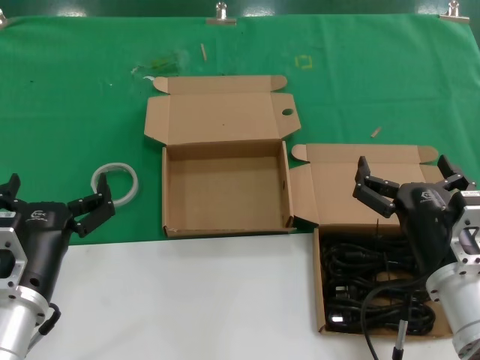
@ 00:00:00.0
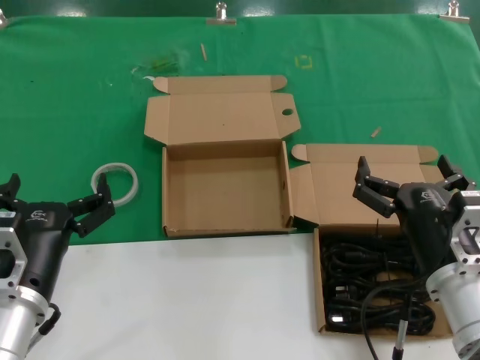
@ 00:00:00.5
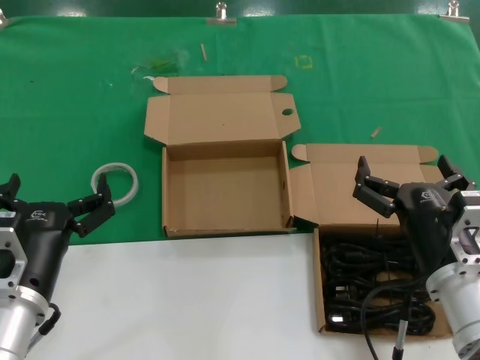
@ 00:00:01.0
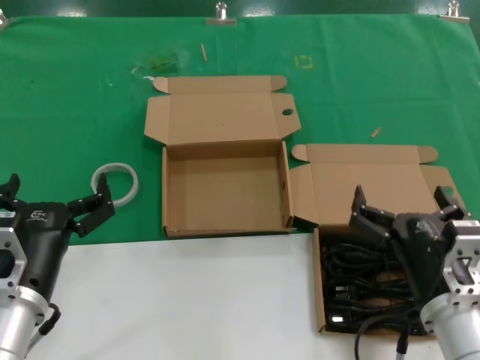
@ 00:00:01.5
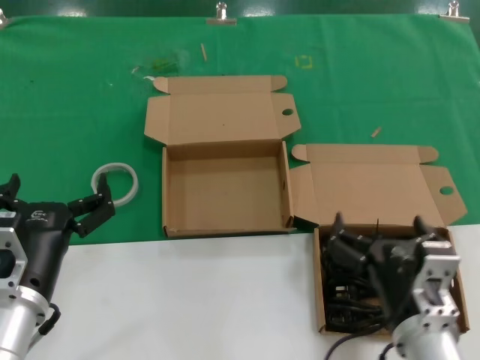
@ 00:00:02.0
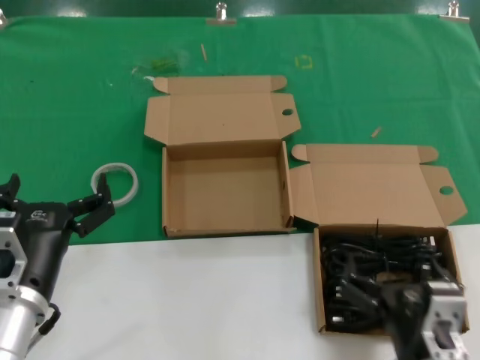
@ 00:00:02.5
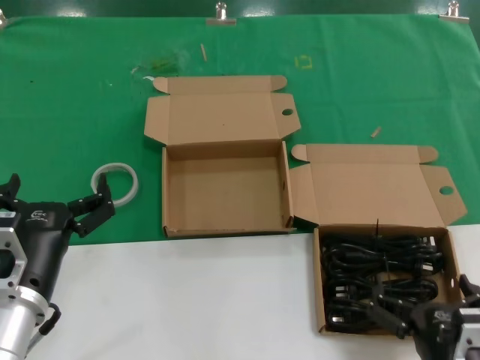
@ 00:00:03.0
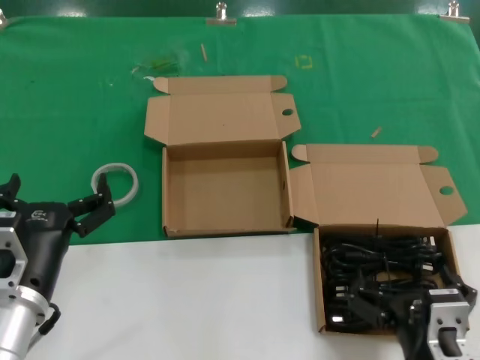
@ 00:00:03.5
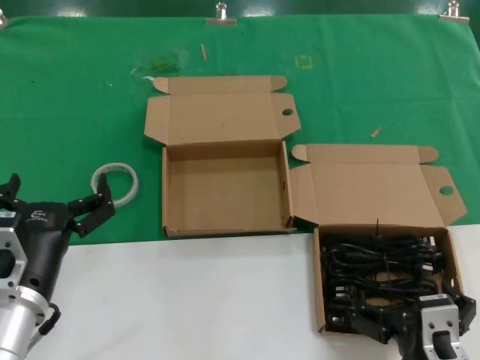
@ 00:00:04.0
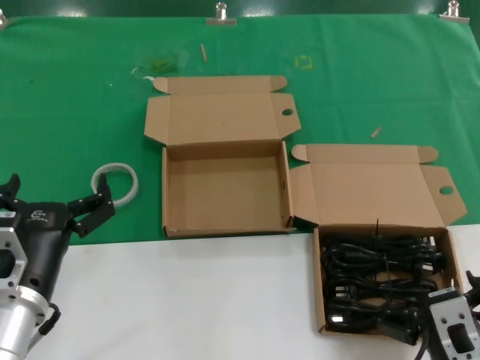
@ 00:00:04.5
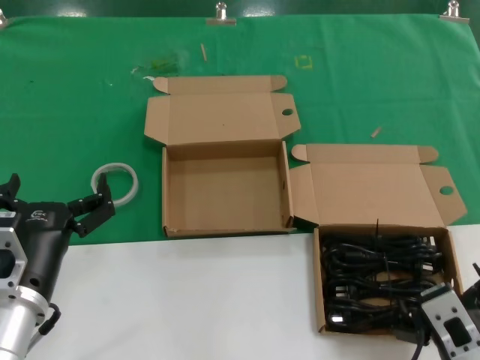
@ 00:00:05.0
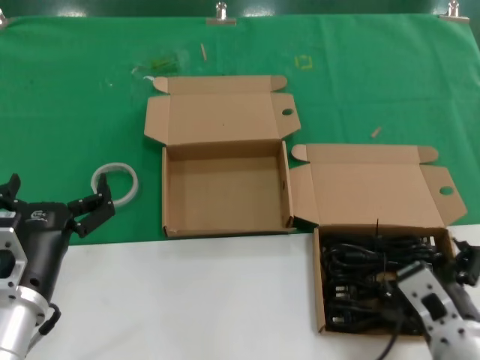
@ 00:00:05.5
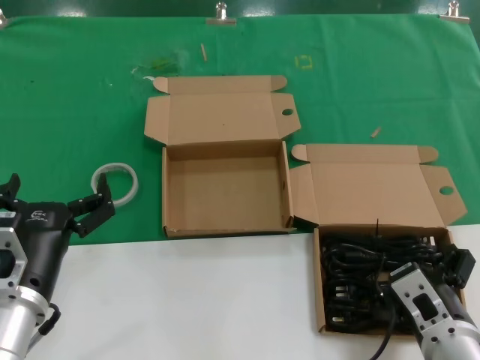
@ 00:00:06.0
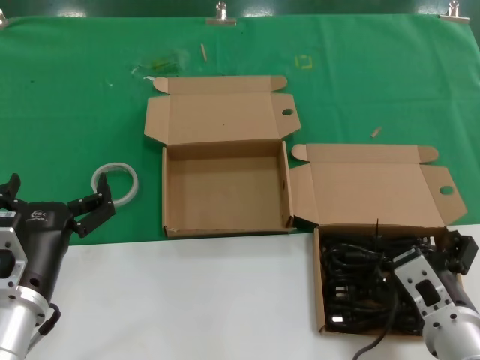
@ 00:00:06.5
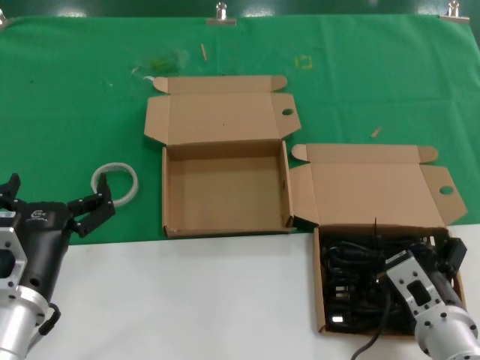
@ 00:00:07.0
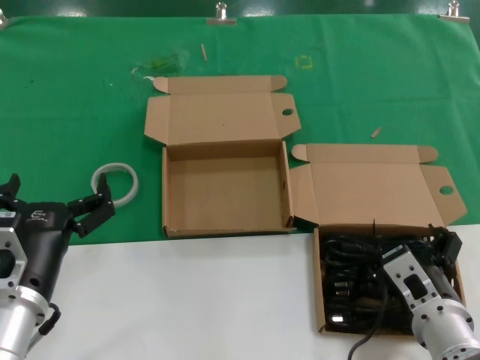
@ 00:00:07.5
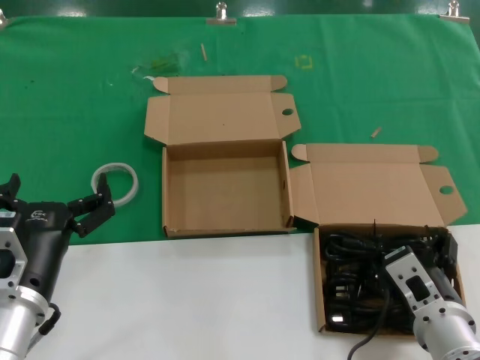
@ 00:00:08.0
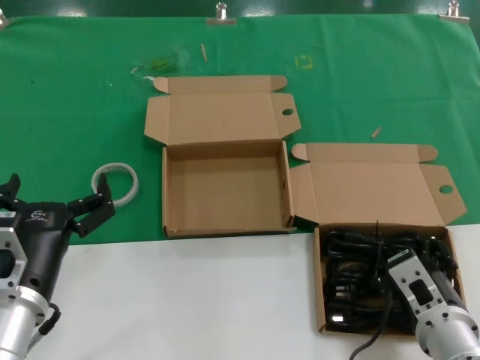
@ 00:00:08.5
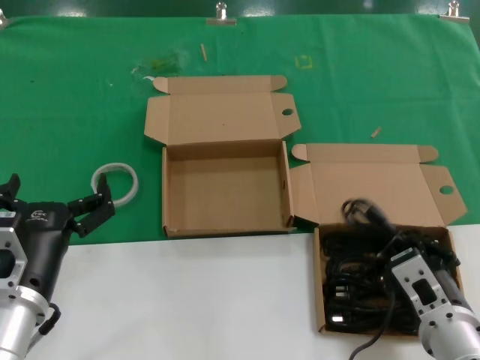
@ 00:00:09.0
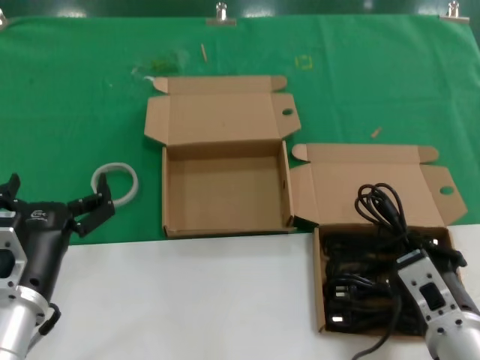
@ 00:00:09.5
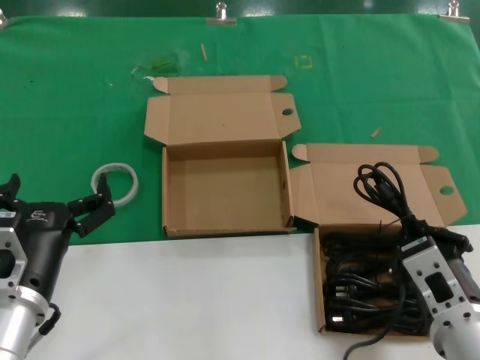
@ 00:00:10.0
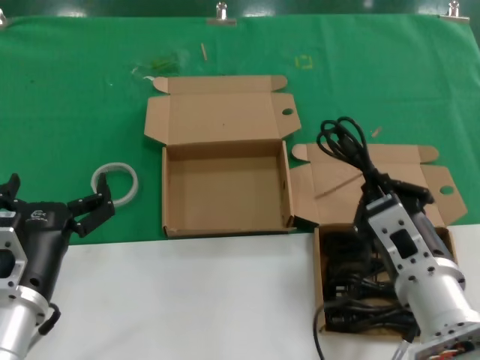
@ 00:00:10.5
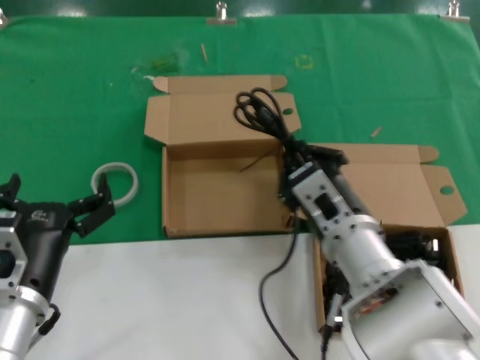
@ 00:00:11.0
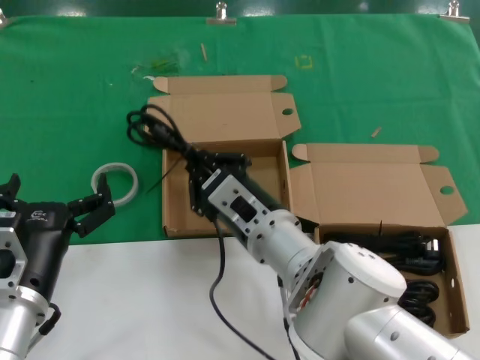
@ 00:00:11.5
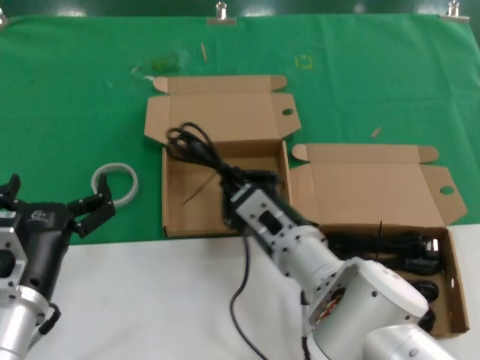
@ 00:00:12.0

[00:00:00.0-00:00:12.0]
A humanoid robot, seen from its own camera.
Task of the whole recording: take the parts from the box containing them and put them into an empty box.
Step, 00:00:00.0 to 00:00:09.0: Grasp the data cable.
00:00:00.0 to 00:00:02.0: The right hand changes place by roughly 5 cm.
00:00:02.0 to 00:00:04.0: The right hand shifts some 5 cm backward.
00:00:04.0 to 00:00:06.0: The right hand heads forward, covering about 5 cm.
00:00:06.0 to 00:00:08.0: The hands make only small movements.
00:00:08.0 to 00:00:10.0: The right hand goes about 5 cm upward.
00:00:10.0 to 00:00:12.0: The right hand travels to the left and forward by approximately 20 cm.

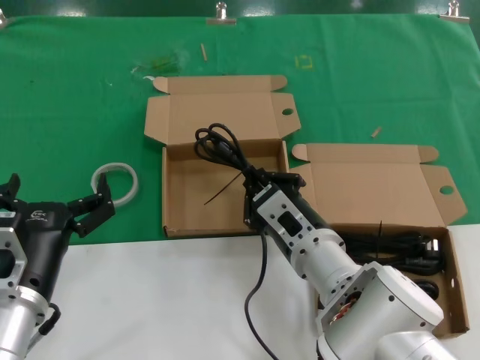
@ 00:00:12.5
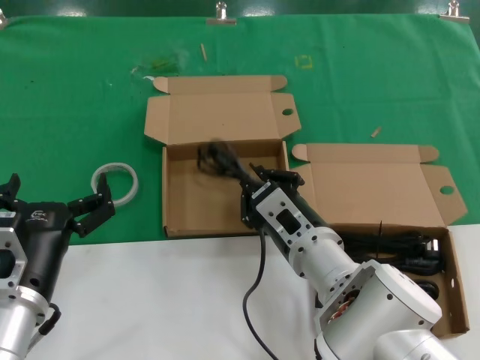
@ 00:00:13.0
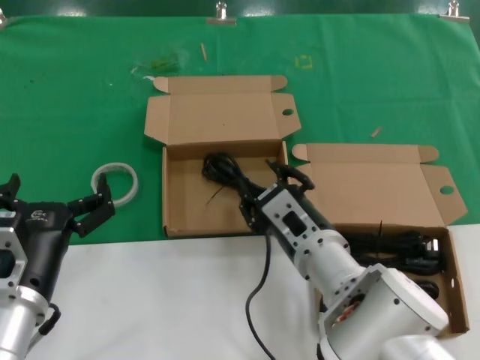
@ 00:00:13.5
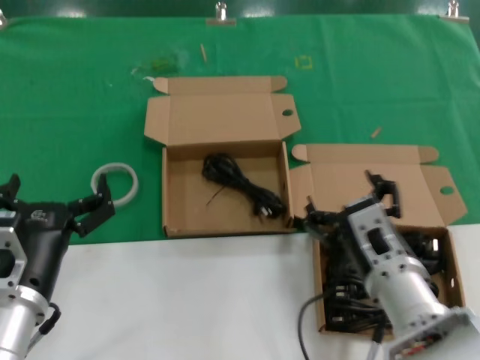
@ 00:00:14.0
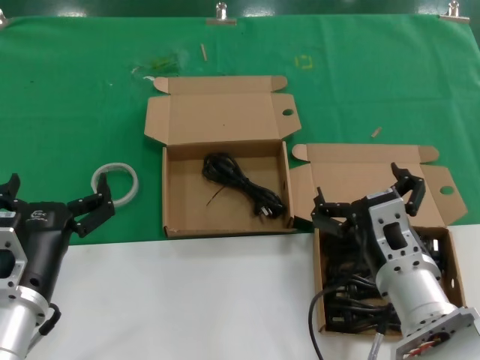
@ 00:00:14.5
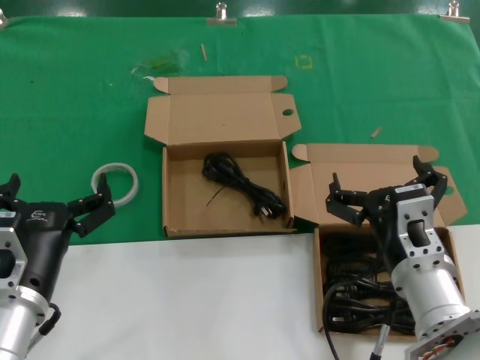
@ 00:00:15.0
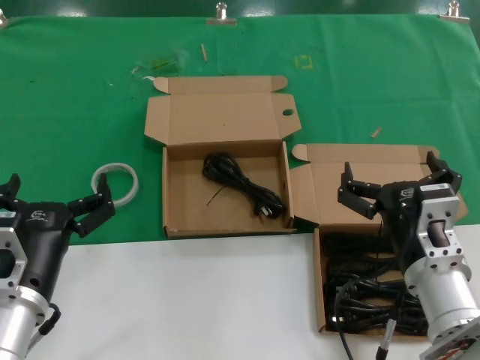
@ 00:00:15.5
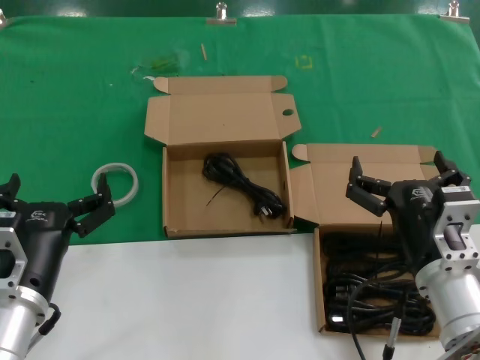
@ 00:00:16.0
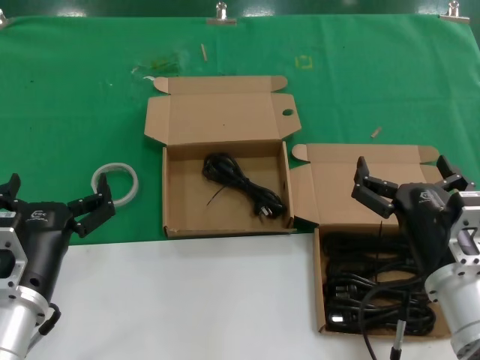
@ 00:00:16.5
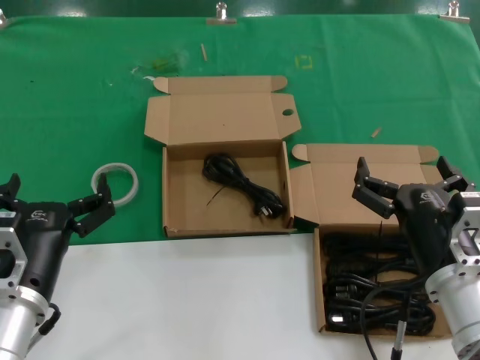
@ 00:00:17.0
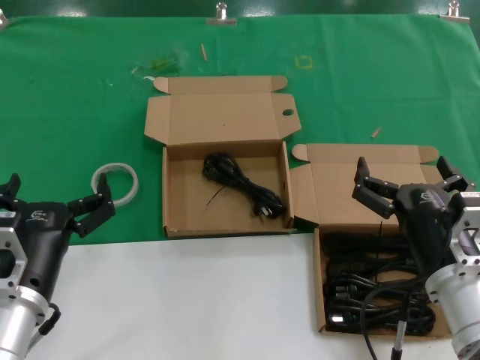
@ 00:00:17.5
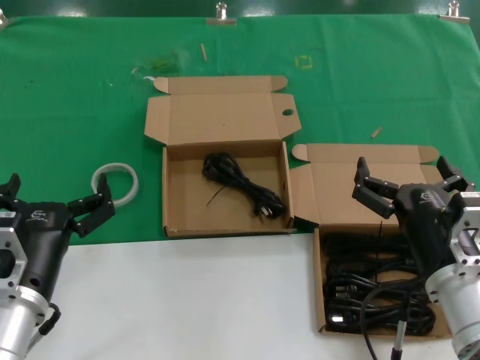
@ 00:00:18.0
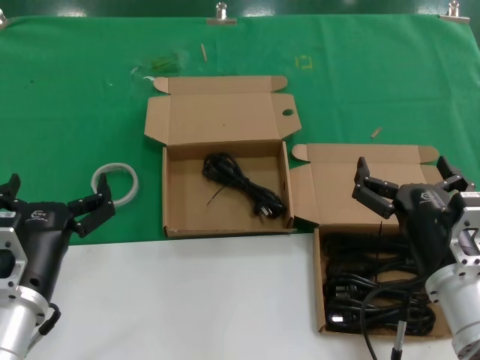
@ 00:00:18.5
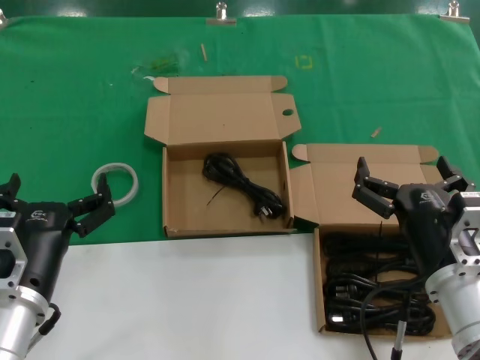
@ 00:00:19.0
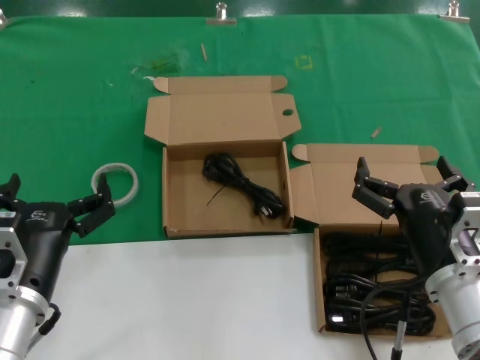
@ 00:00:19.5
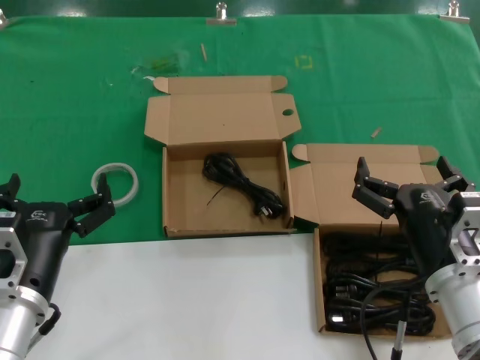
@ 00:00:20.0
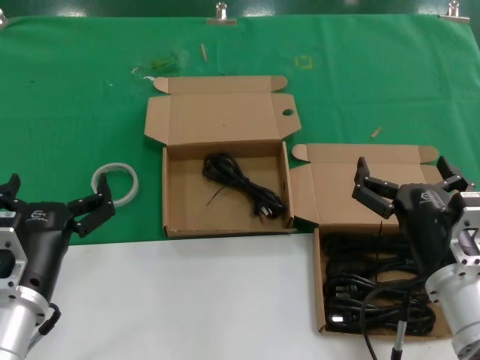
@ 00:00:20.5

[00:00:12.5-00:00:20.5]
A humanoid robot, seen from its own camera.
Task of the whole recording: take the parts from the box containing them and put them into an empty box.
00:00:12.5 to 00:00:14.5: The right hand goes approximately 10 cm to the right and backward.
00:00:14.5 to 00:00:16.5: The right hand shifts roughly 5 cm to the right.
00:00:16.5 to 00:00:20.5: The two hands keep their place.
